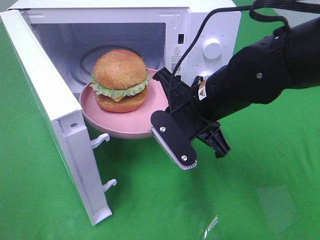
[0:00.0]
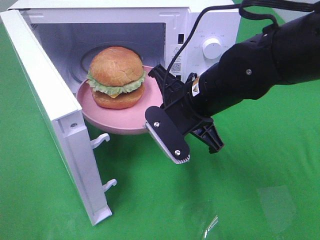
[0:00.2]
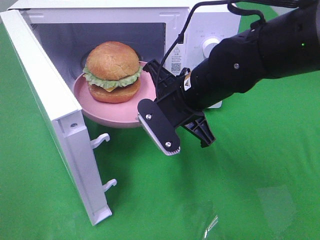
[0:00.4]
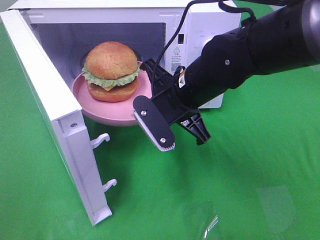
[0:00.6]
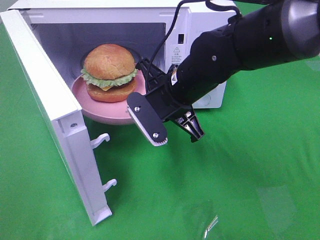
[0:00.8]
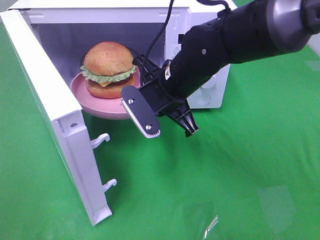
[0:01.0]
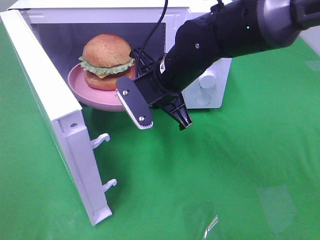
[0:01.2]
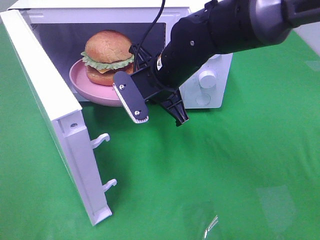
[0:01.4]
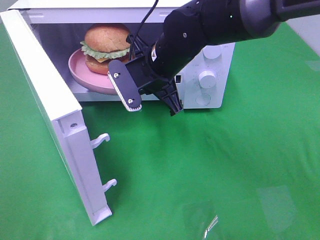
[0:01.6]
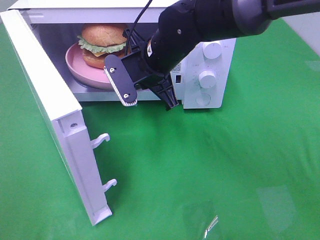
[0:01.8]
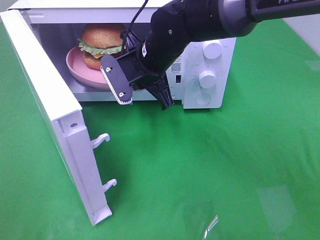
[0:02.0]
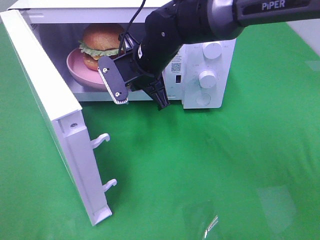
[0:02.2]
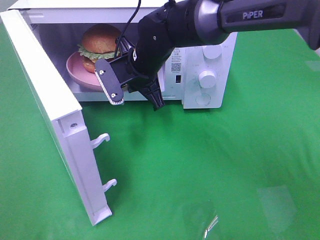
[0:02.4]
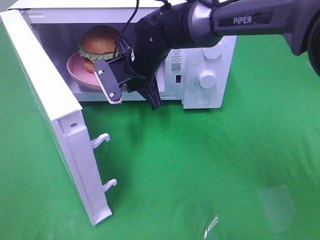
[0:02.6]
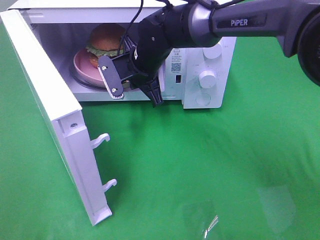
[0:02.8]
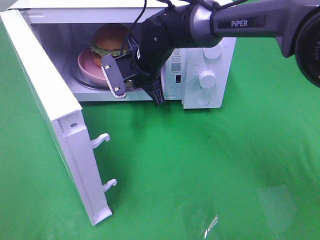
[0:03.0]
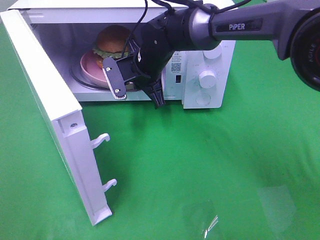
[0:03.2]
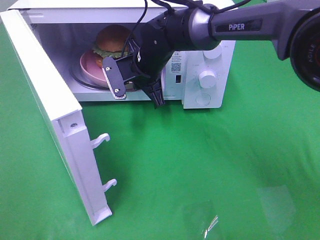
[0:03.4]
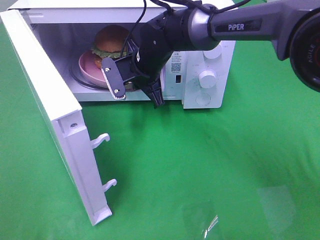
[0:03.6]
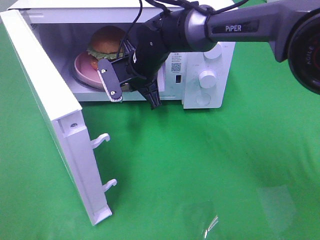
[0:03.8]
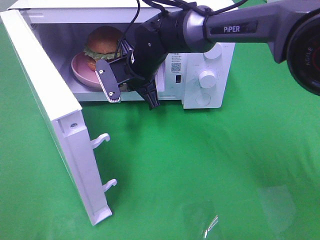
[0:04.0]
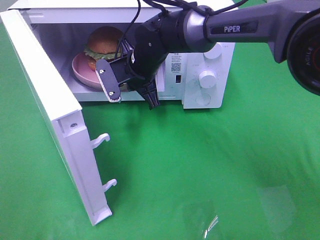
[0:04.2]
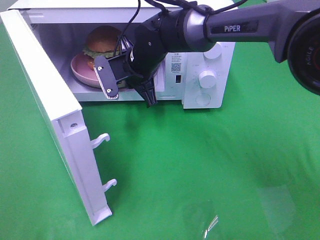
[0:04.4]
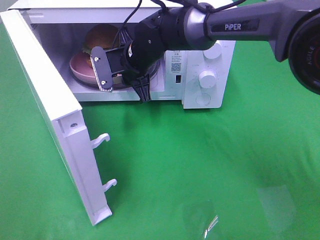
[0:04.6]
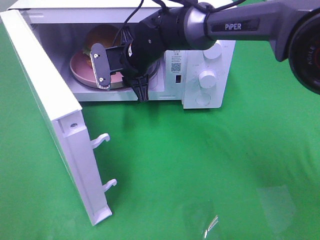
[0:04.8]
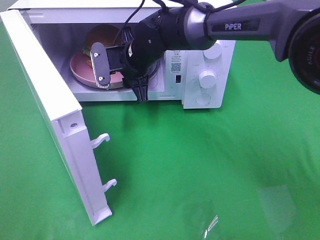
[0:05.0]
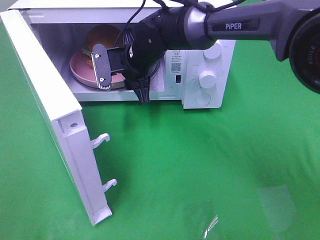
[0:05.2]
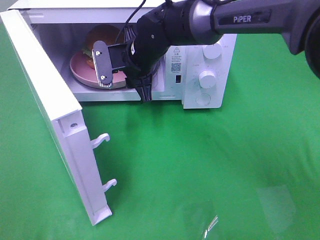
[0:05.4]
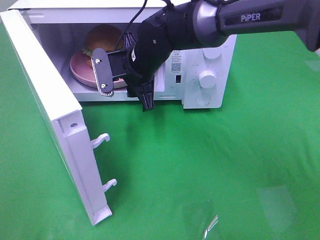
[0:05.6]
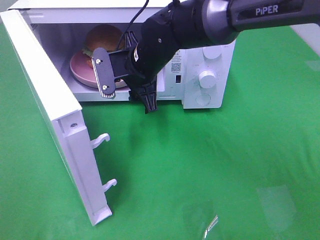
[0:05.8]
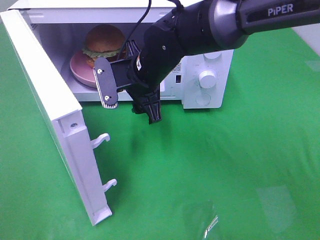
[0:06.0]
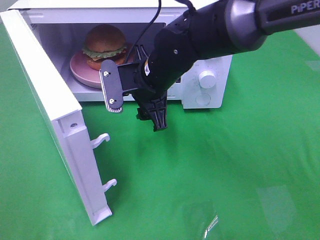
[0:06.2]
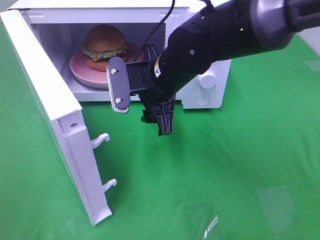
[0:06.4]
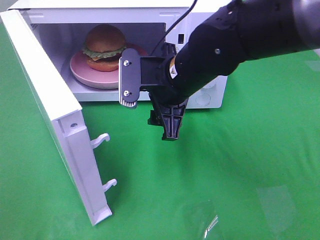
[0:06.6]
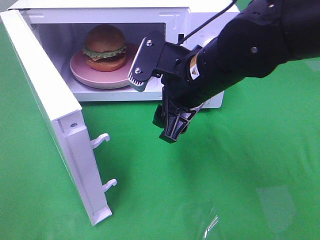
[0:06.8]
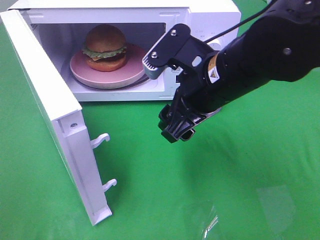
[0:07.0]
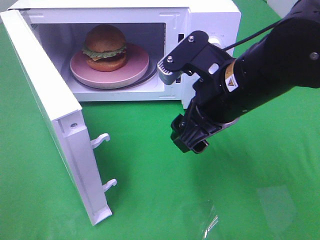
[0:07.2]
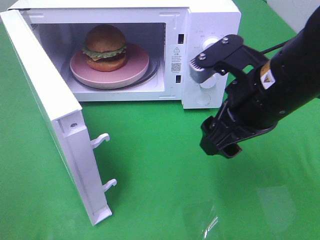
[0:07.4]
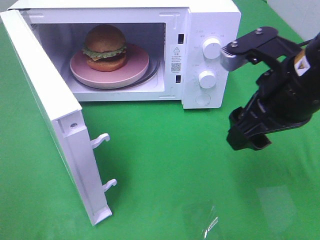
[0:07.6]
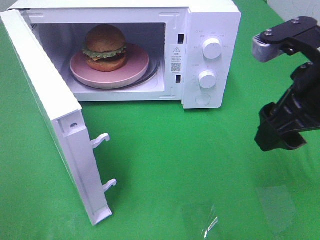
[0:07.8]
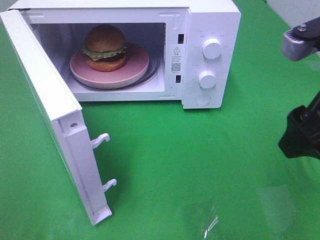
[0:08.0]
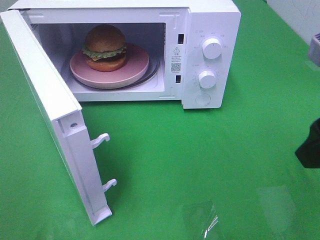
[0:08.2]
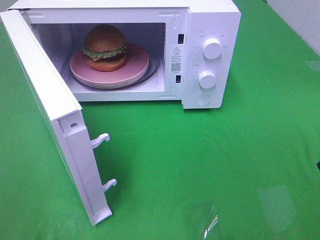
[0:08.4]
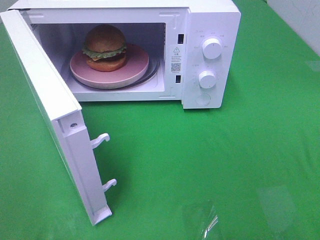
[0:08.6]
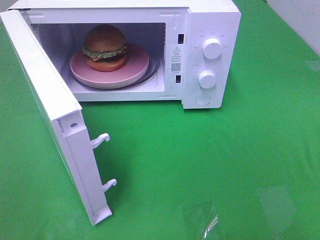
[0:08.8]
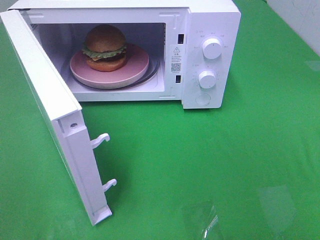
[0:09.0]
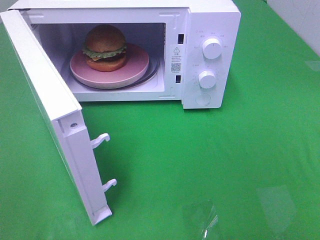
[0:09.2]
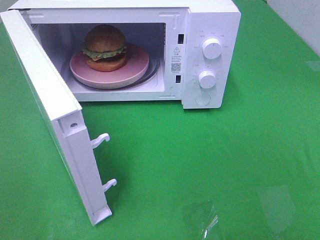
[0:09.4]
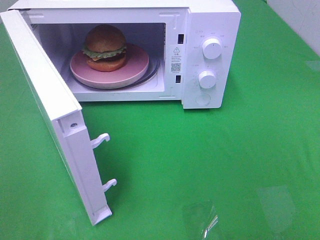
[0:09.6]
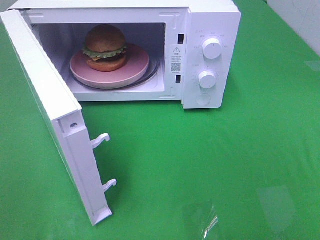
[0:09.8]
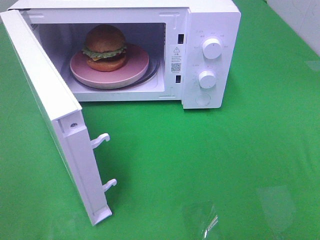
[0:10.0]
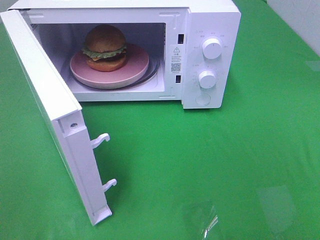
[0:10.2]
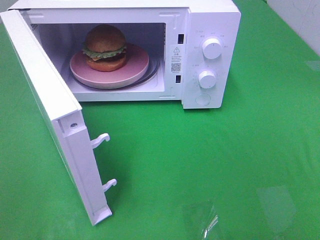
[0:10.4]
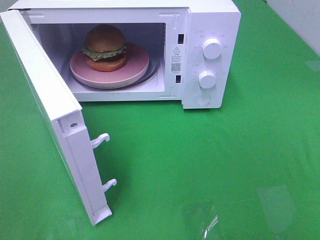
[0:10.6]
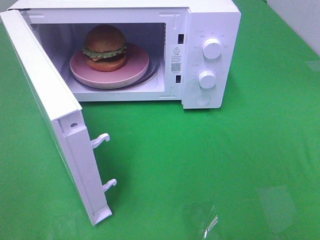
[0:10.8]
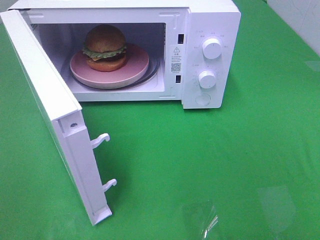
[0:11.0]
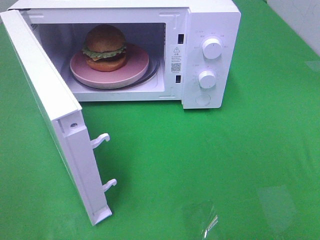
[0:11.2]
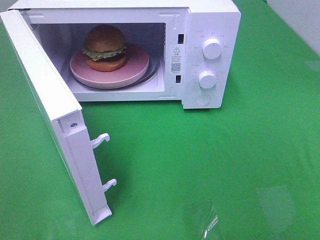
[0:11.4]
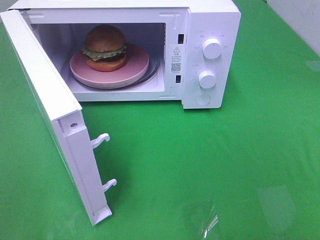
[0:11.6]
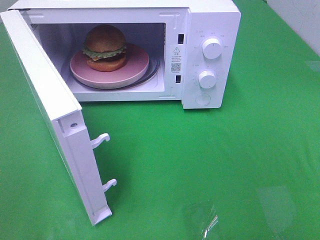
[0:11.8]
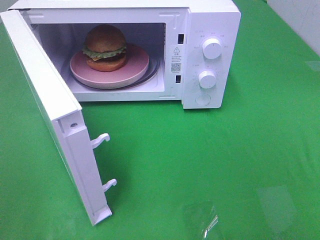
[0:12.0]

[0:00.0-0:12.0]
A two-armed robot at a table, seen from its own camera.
Task of the whole recording: Heat the burger.
Step, 0:00.0 to 0:04.6: Right hand: place the plate in the microwave.
0:00.0 to 0:01.6: The right gripper travels forward and to the left by about 10 cm.
0:01.6 to 0:03.0: The right gripper goes about 5 cm forward.
0:03.0 to 0:04.4: Neither gripper changes place.
0:04.4 to 0:06.0: The right gripper travels backward by about 5 cm, and opens its fingers.
0:06.0 to 0:07.6: The right gripper goes some 25 cm to the right, backward and upward.
0:07.6 to 0:09.0: The right gripper goes some 20 cm backward and to the right.

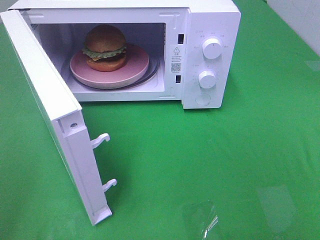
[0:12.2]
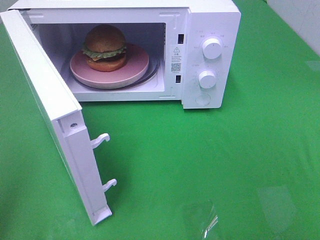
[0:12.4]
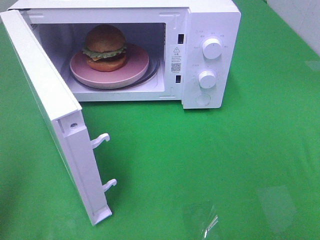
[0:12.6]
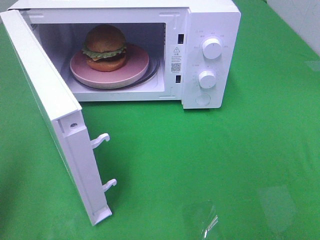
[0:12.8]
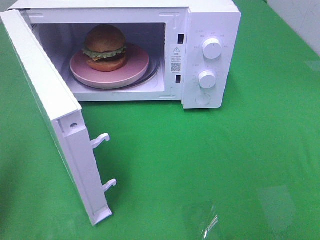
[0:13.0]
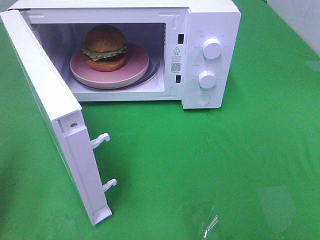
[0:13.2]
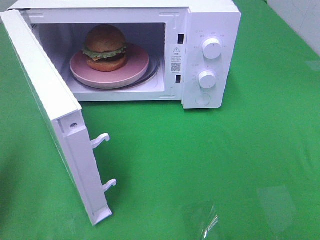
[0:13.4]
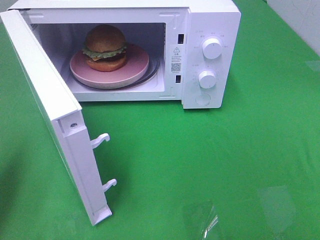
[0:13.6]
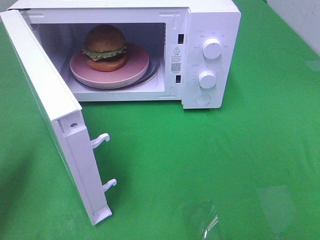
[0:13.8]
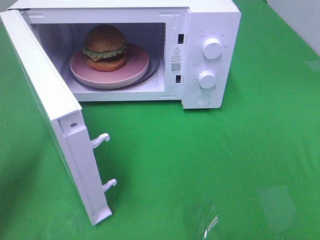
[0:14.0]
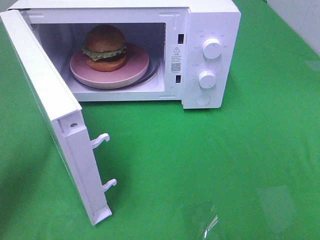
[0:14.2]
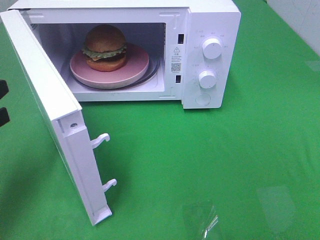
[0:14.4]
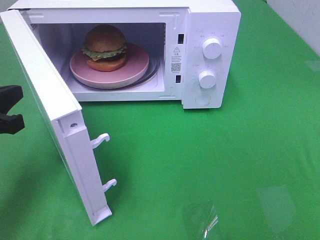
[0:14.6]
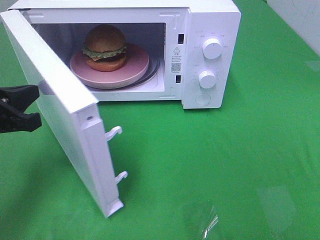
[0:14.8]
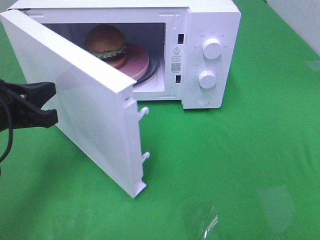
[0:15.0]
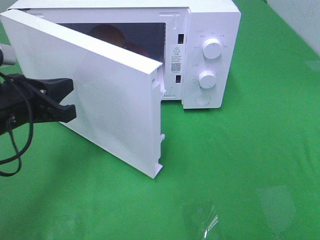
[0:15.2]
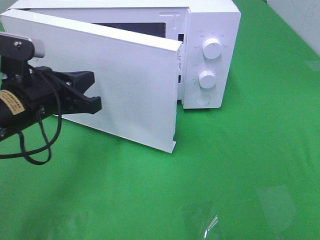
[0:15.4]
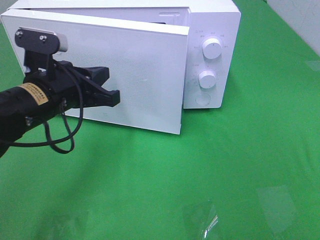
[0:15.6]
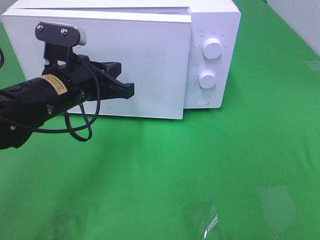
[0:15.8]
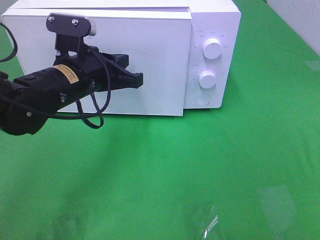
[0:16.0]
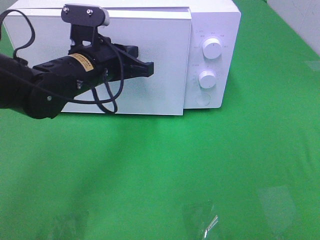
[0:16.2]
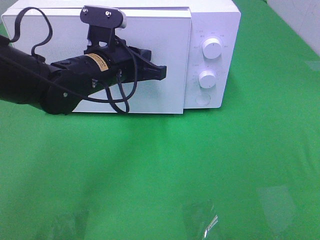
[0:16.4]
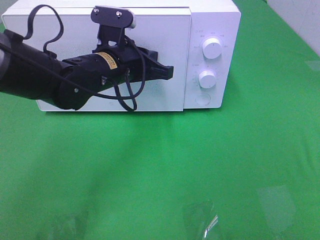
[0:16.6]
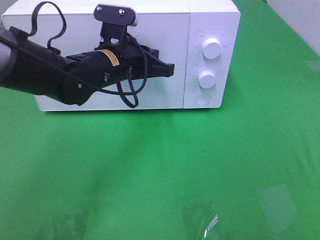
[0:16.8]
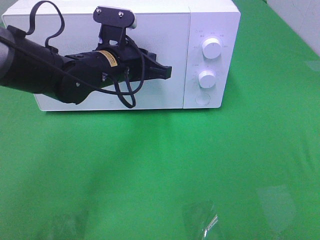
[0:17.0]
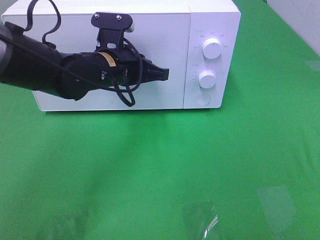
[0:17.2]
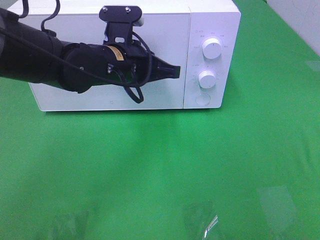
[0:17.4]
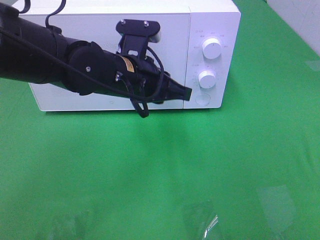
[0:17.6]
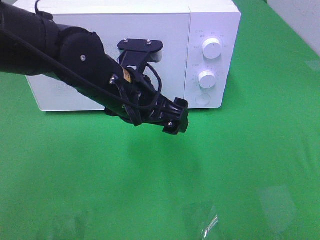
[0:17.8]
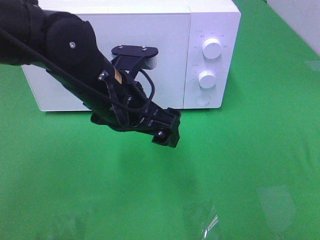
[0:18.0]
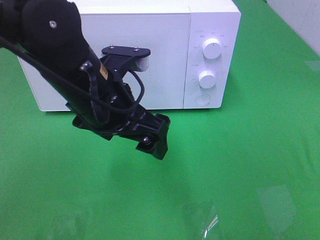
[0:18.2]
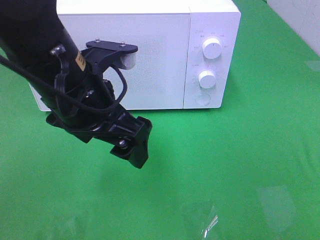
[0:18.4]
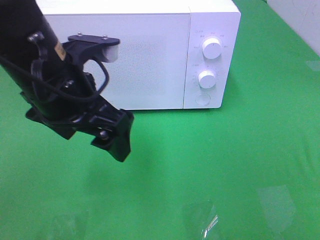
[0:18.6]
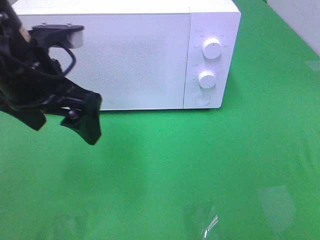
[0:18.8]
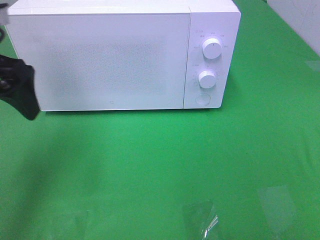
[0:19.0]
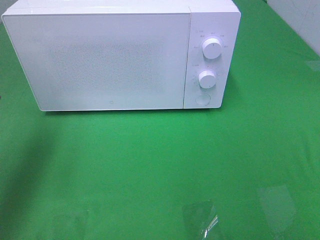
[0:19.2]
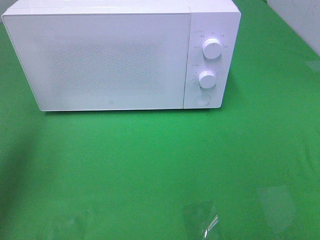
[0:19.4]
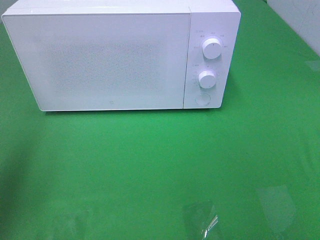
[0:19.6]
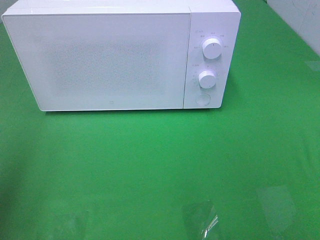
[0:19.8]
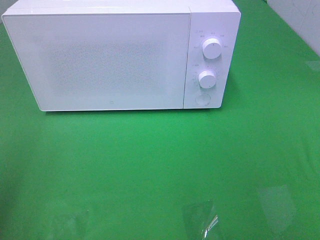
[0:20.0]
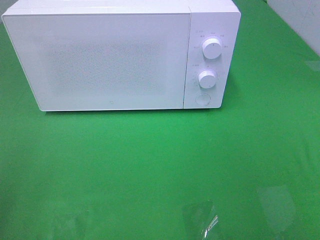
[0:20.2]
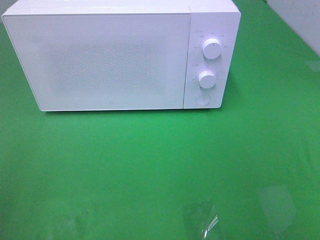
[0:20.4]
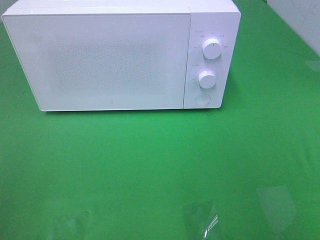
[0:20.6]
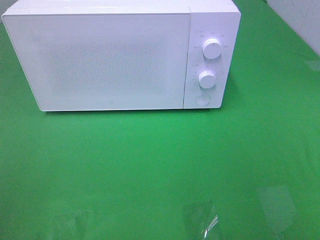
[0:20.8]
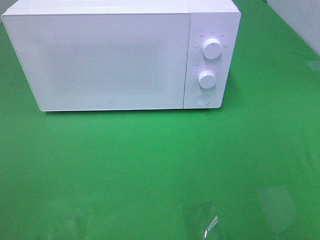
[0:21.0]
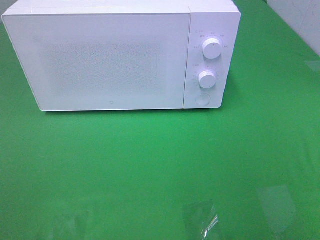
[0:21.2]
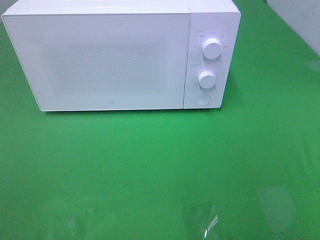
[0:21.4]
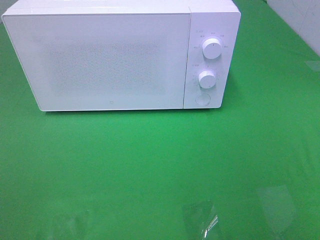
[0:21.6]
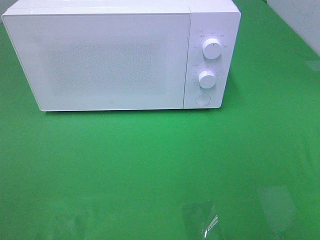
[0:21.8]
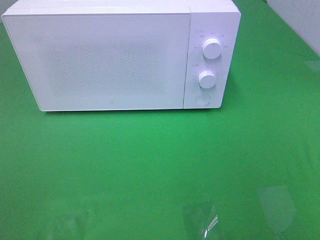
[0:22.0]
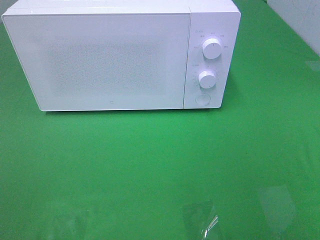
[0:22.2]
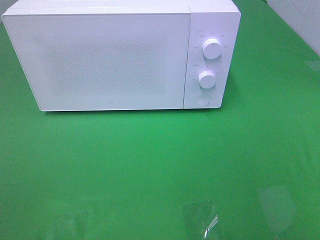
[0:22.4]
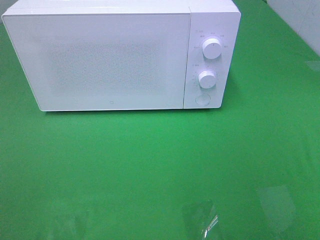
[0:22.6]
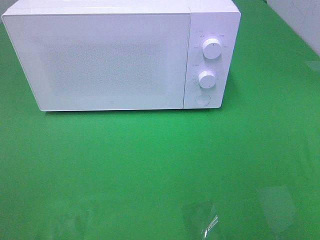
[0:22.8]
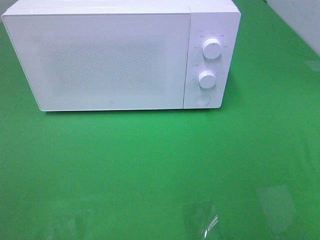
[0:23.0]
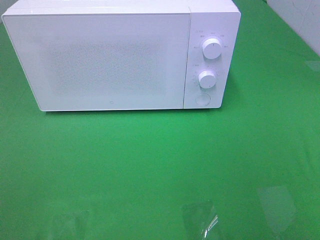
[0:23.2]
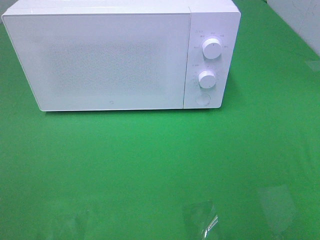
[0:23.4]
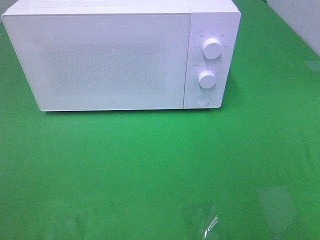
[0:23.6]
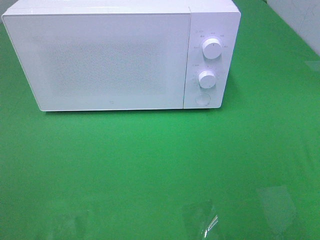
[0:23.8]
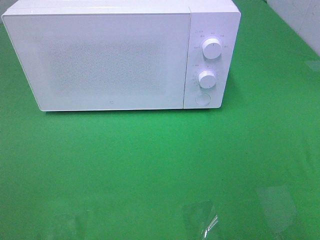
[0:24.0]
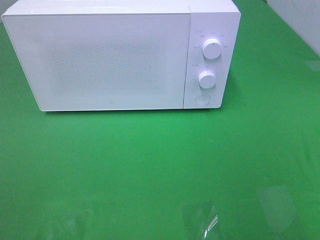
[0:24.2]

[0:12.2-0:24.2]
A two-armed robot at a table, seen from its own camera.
Task of the whole recording: Heat the burger.
Step, 0:12.2 to 0:16.8: Left hand: close the microwave door.
0:12.2 to 0:13.8: The left gripper travels forward and downward by roughly 15 cm, and closes its fingers.
0:13.8 to 0:15.2: The left gripper shifts some 15 cm to the right and forward.
0:15.2 to 0:16.6: The left gripper travels to the right and forward by about 15 cm.
0:16.6 to 0:18.2: The left gripper travels backward by some 10 cm, and opens up.
0:18.2 to 0:19.8: The left gripper goes approximately 25 cm to the left.
0:19.8 to 0:21.2: The left gripper shifts roughly 15 cm backward.
0:21.2 to 0:22.6: The two grippers keep their place.
